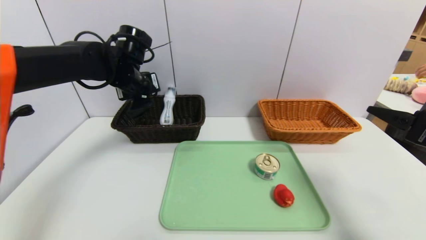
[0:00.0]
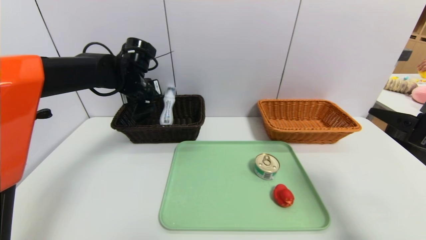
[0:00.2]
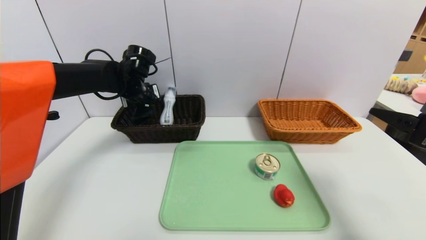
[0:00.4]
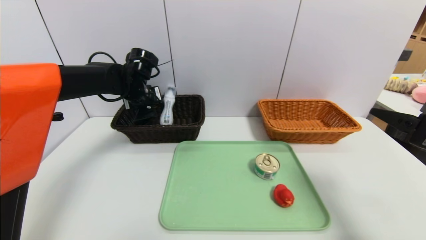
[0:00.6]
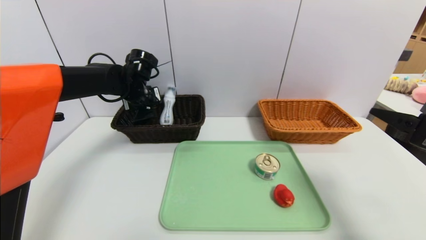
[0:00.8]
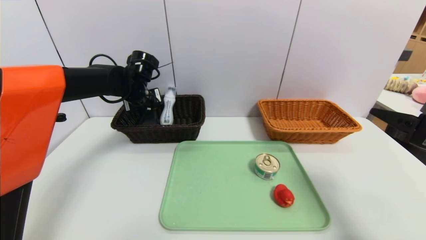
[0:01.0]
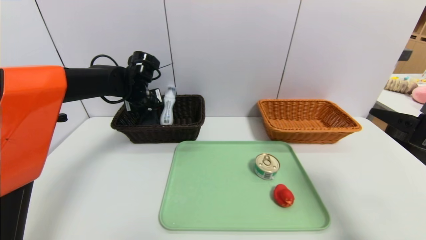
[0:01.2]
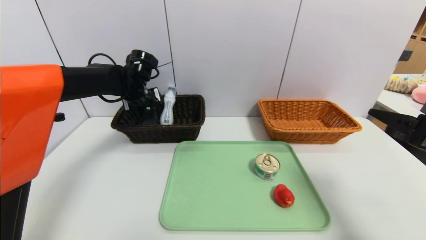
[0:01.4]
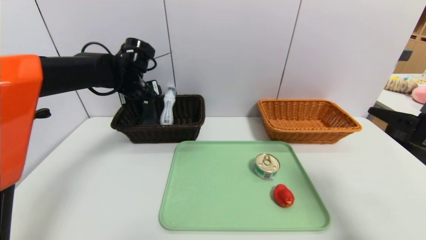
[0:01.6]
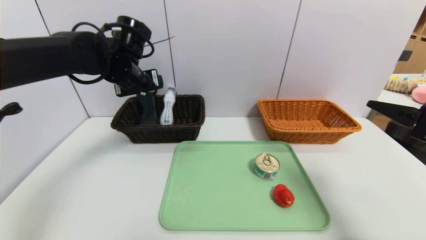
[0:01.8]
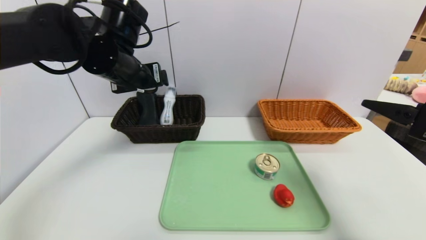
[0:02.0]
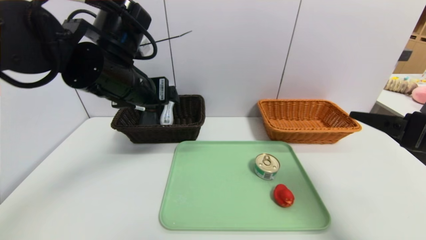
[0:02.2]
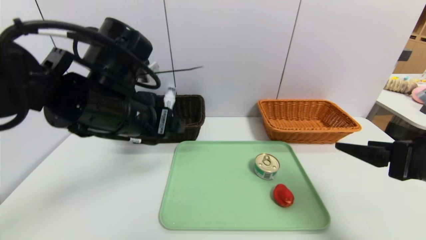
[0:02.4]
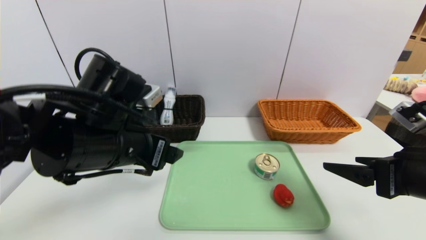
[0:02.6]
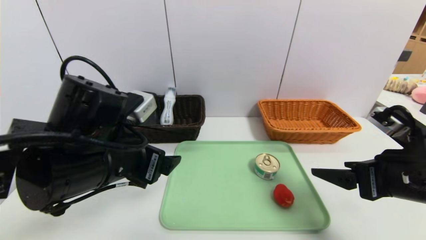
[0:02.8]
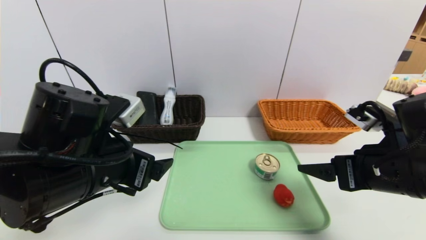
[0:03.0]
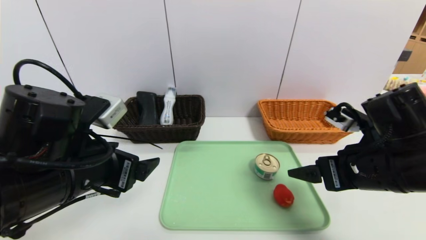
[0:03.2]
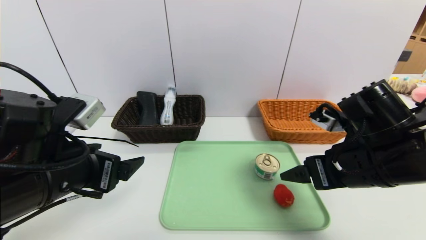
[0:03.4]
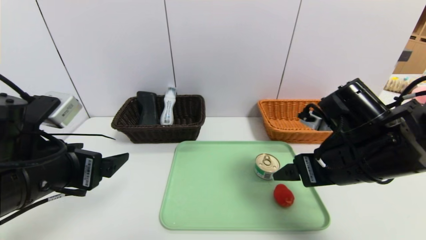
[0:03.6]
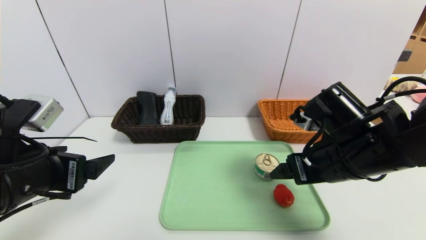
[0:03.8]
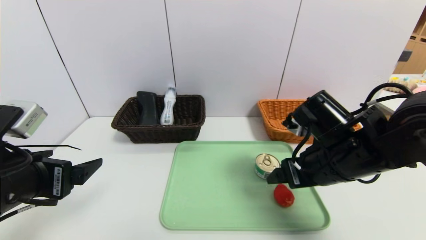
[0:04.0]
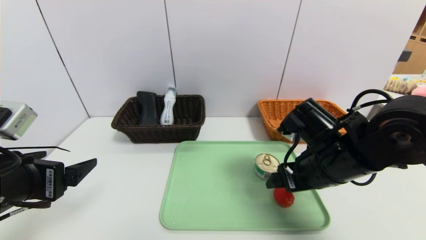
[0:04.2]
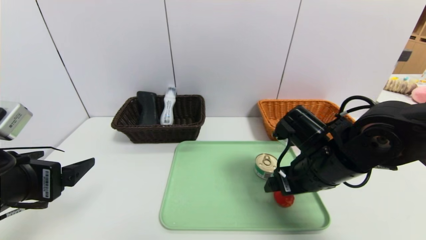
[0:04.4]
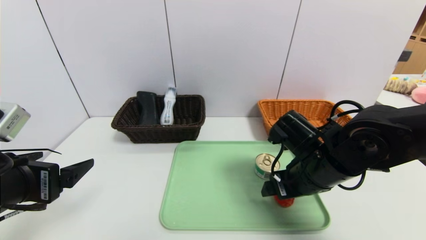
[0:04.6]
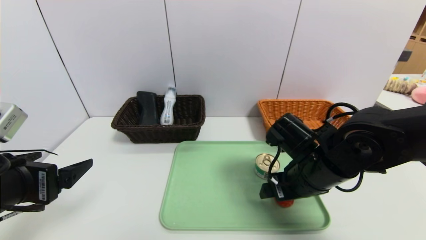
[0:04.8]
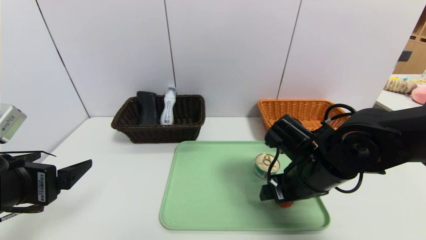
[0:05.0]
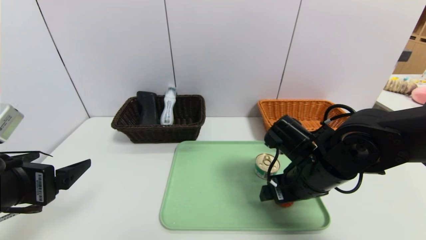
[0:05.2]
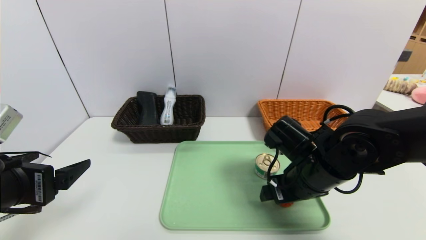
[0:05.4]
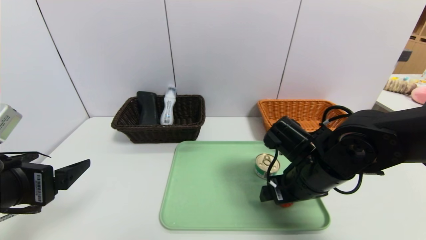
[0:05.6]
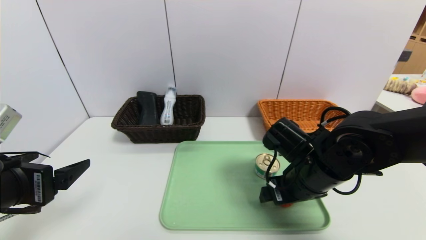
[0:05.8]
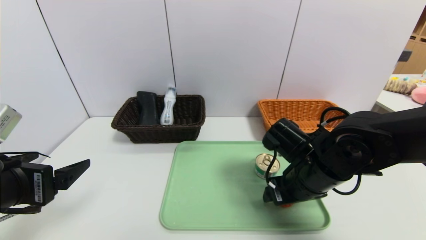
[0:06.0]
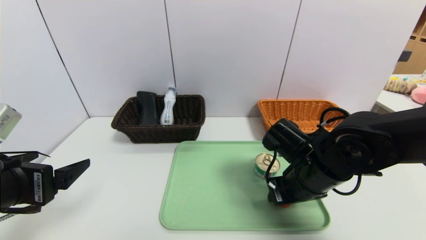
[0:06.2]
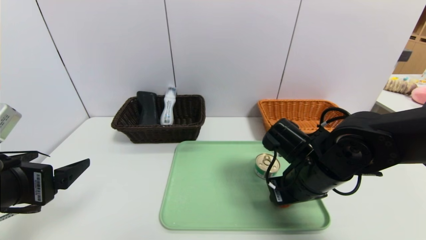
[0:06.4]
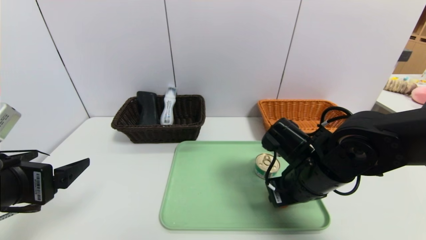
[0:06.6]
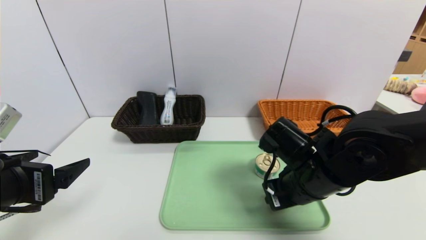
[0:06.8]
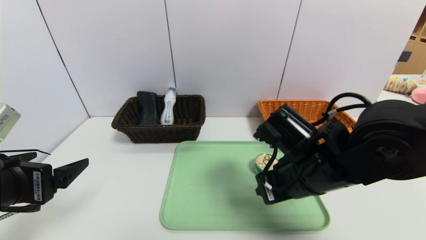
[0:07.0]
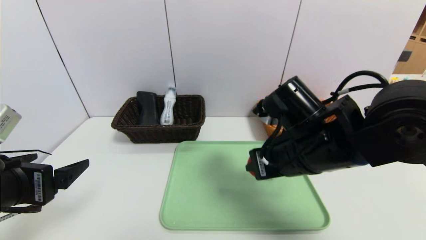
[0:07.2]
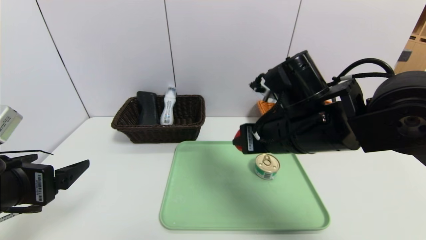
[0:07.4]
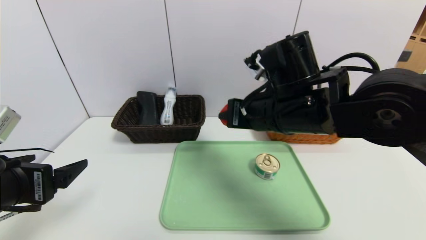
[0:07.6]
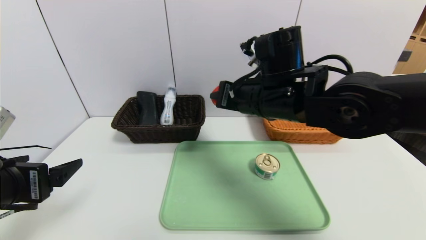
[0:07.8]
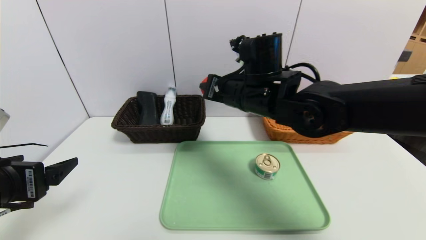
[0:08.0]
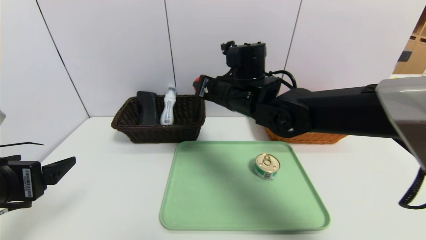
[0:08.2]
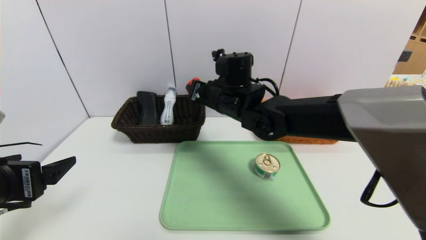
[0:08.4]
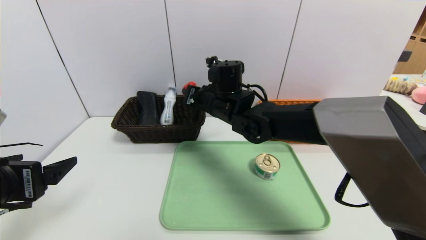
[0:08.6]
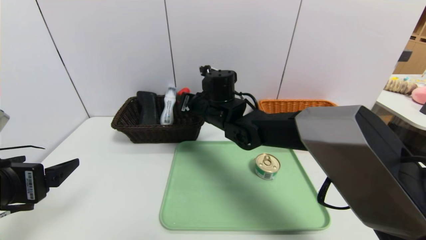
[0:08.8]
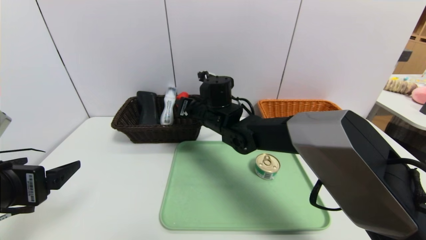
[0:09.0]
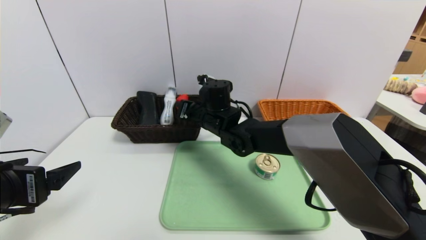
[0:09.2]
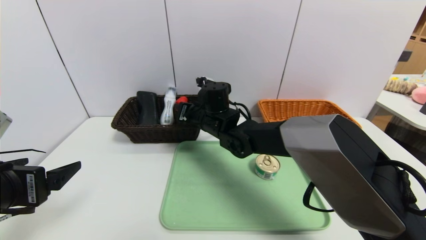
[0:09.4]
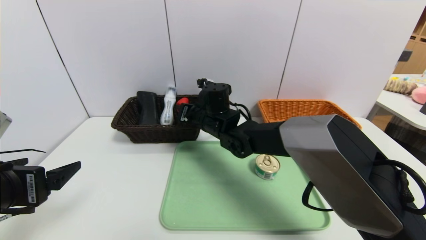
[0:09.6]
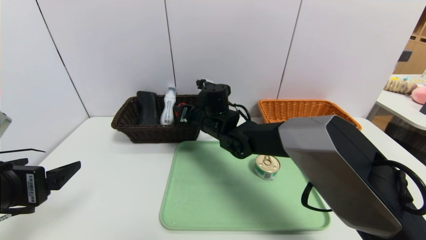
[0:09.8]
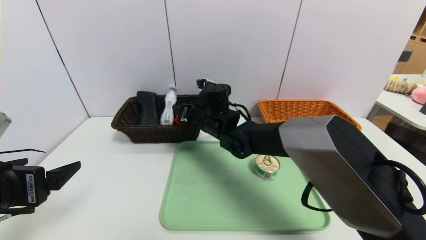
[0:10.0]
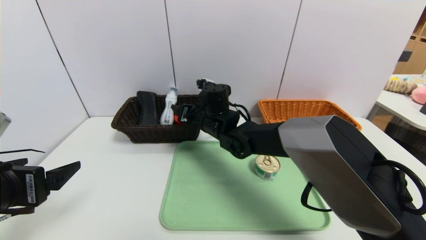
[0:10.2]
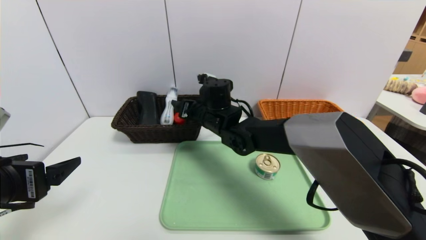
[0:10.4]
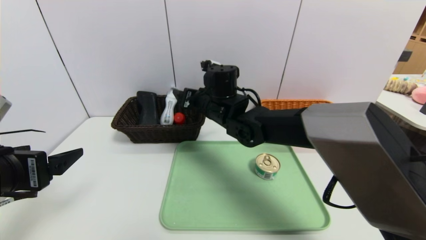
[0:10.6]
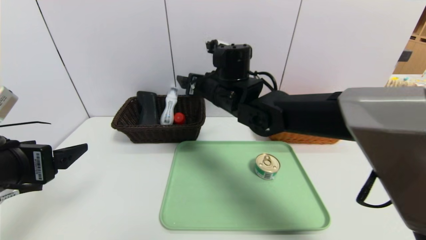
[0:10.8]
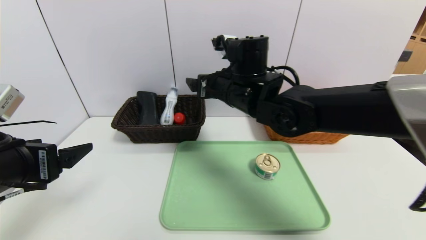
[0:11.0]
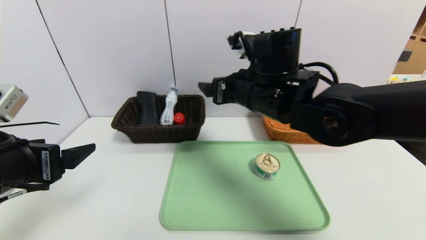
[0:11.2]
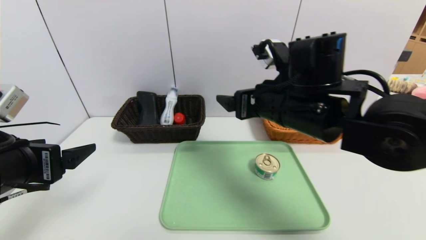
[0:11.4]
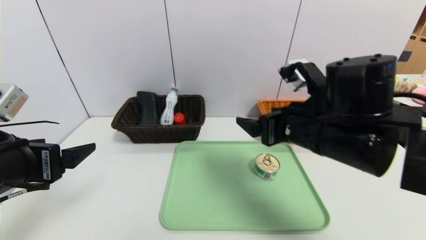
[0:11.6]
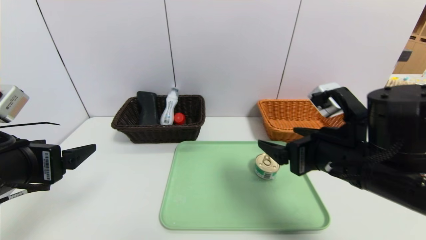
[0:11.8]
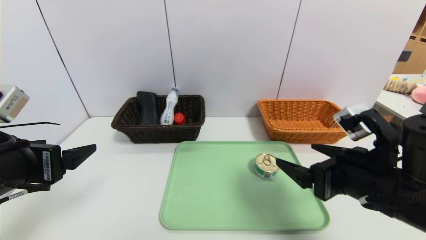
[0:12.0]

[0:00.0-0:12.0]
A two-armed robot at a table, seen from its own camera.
Task of the whole recording: place the food in the right basket with the right gripper, and place the non food items in the left basket with the left gripper.
Step, 0:00.0 to 0:02.2: Grasp the glasses case and put it in the left basket.
Step, 0:02.4 to 0:11.2: Grasp the red duck and put it in the left basket.
0:00.0 to 0:01.6: The left gripper opens up.
0:01.6 to 0:03.0: The right gripper heads to the left, covering some 10 cm, while the left gripper shifts roughly 25 cm backward.
0:03.0 to 0:04.4: The right gripper goes roughly 10 cm to the left and forward. Meanwhile the left gripper is displaced to the left by roughly 10 cm.
0:04.4 to 0:06.0: The grippers make only small movements.
0:06.0 to 0:07.6: The right gripper shifts approximately 15 cm upward and to the left, and closes.
0:07.6 to 0:09.0: The right gripper moves forward, to the left and downward, some 20 cm.
0:09.0 to 0:10.4: The right gripper opens its fingers.
0:10.4 to 0:12.0: The right gripper shifts about 30 cm backward and to the right.

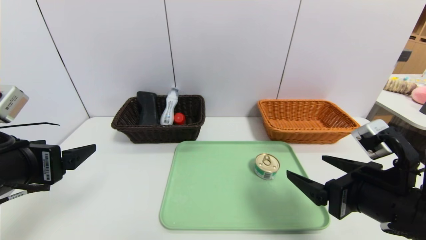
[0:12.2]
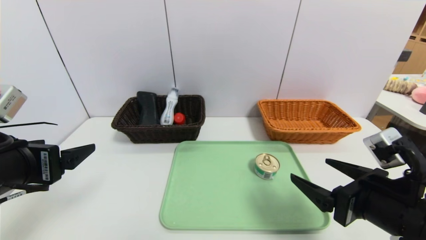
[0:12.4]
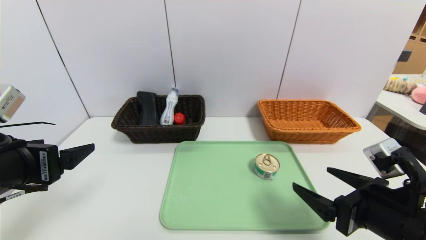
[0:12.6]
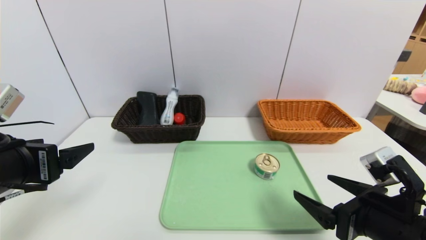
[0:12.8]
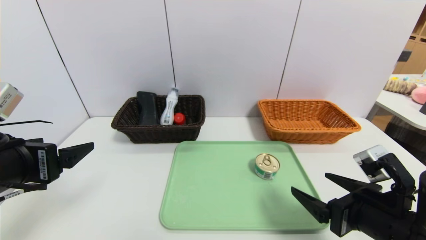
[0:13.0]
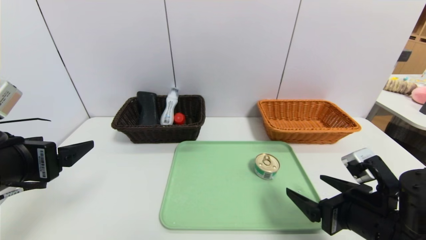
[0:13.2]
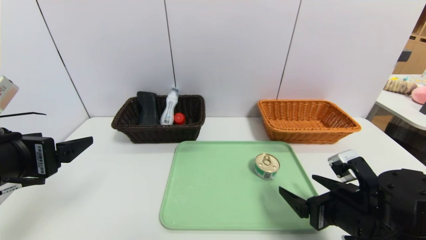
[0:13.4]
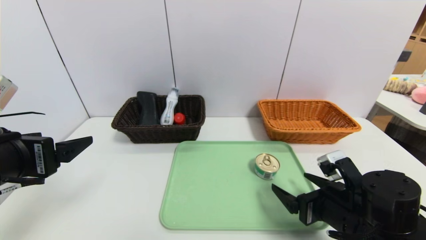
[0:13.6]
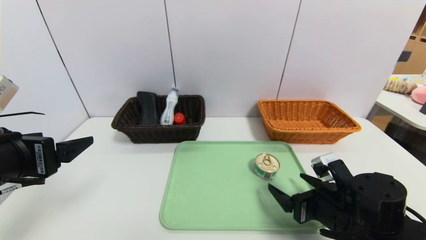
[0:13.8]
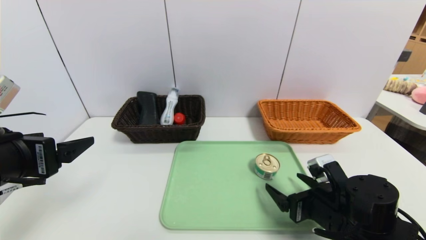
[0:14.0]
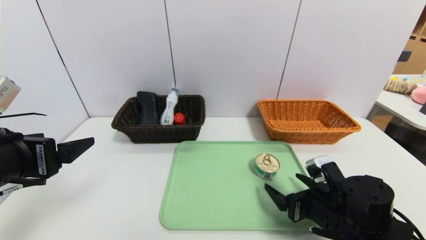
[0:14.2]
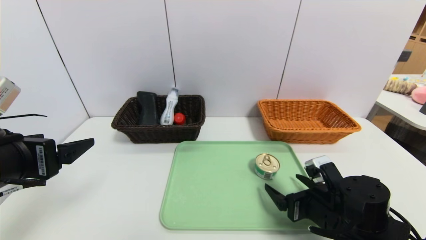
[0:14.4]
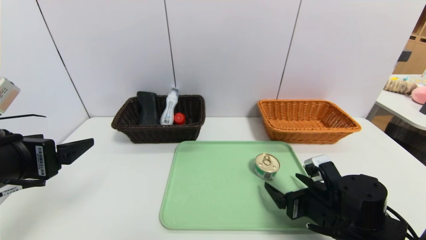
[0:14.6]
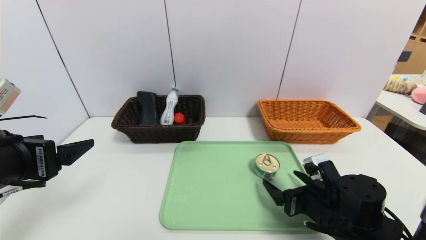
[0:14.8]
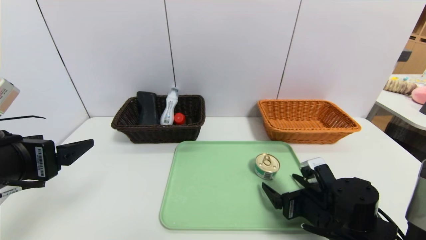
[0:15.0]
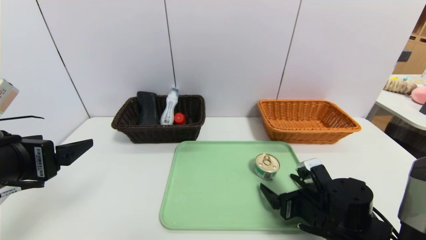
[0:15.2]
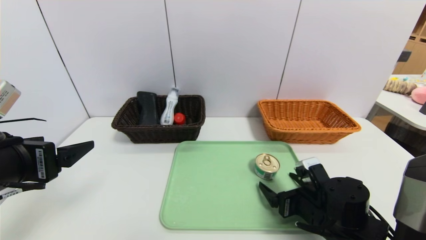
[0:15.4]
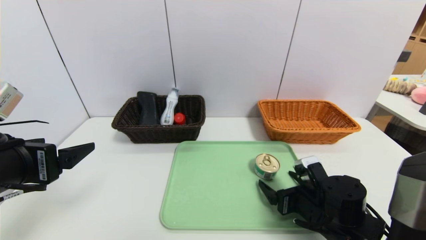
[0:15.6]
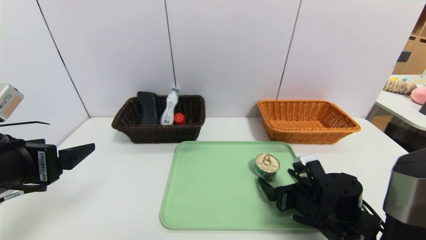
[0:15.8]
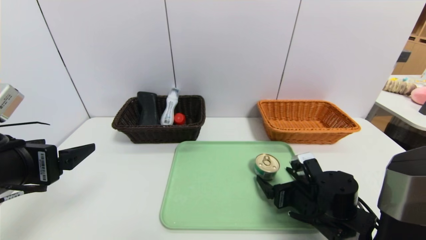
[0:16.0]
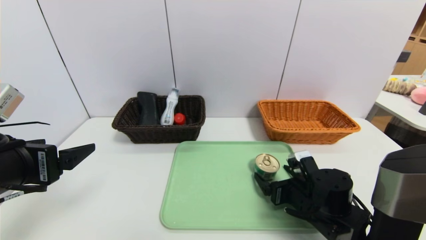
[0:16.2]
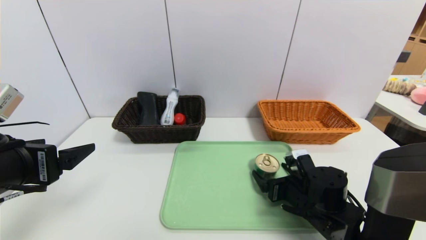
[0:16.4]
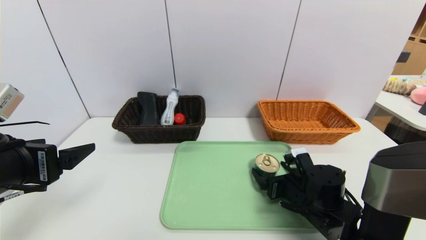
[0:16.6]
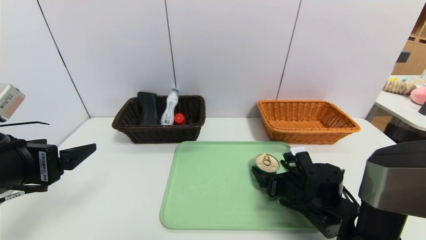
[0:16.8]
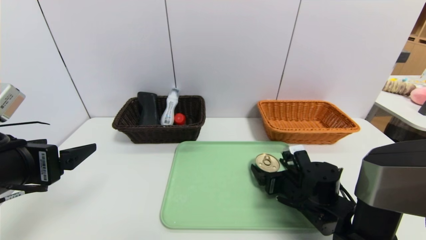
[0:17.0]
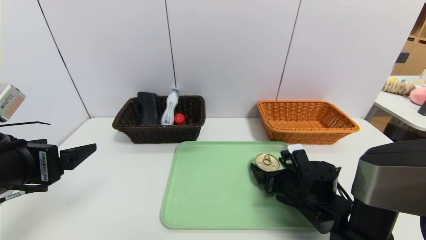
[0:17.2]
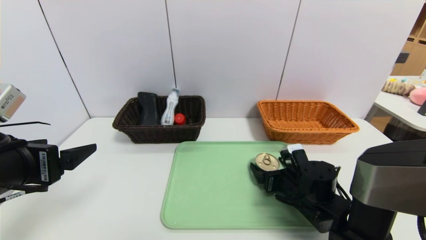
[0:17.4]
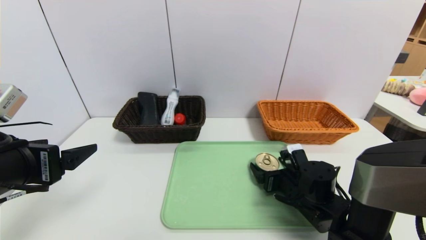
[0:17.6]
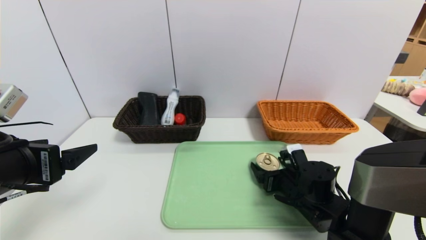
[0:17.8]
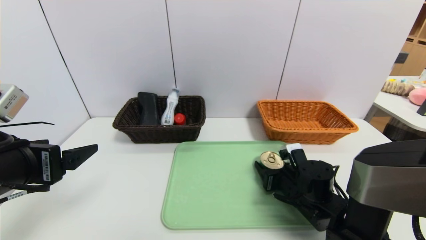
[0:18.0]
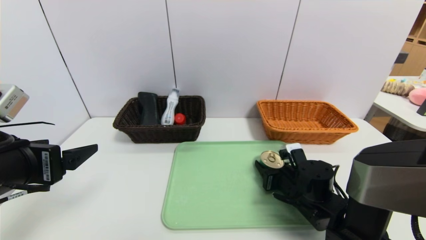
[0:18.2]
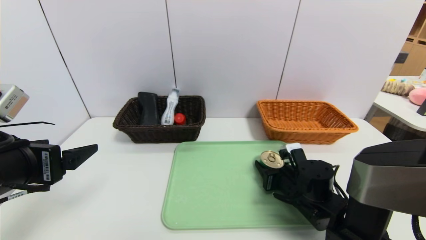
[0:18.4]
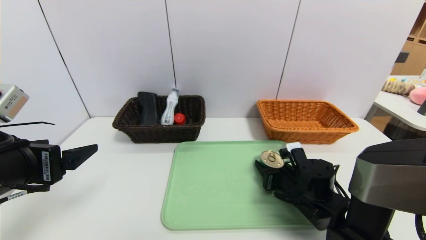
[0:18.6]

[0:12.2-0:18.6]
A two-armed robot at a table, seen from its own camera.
Task of the whole recording: place the food in the right basket with the right gripper, and place the non food items in the left basket with the left gripper.
0:12.2 to 0:13.8: The right gripper shifts roughly 10 cm downward.
0:13.8 to 0:15.4: The grippers stay close to where they were, moving slightly.
0:15.4 to 0:17.0: The right gripper moves forward, some 5 cm.
0:17.0 to 0:18.6: The right gripper closes up.
